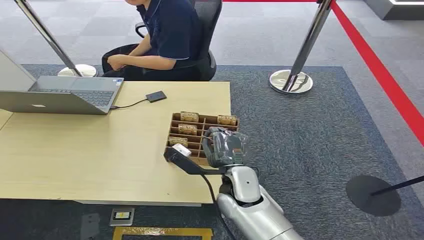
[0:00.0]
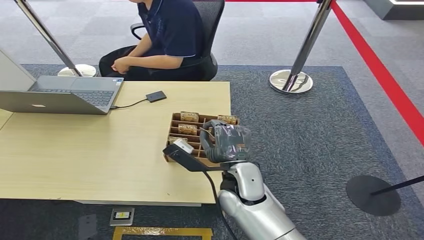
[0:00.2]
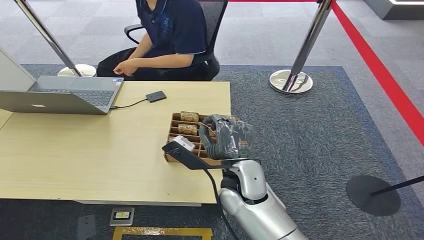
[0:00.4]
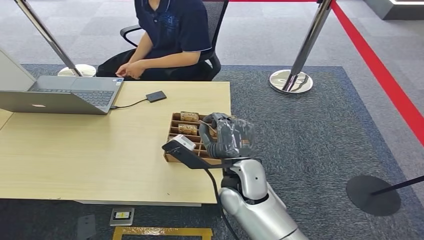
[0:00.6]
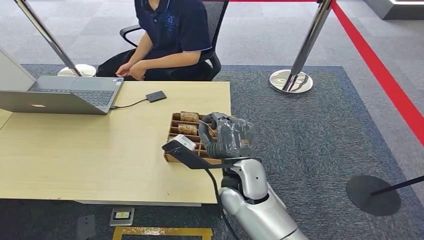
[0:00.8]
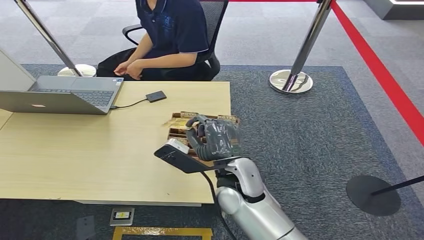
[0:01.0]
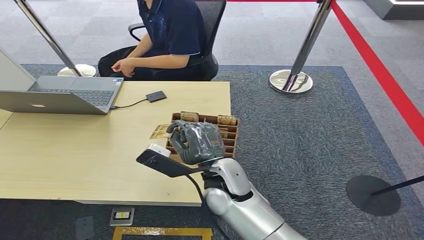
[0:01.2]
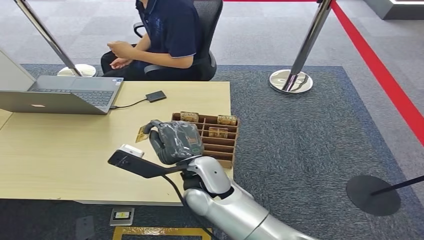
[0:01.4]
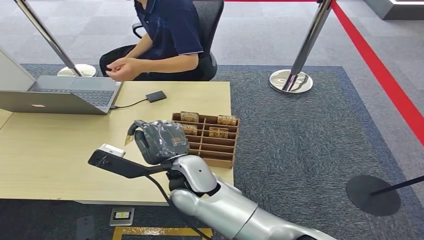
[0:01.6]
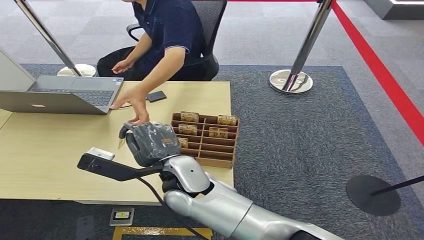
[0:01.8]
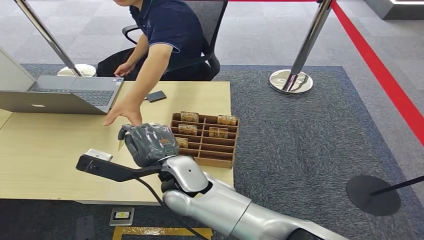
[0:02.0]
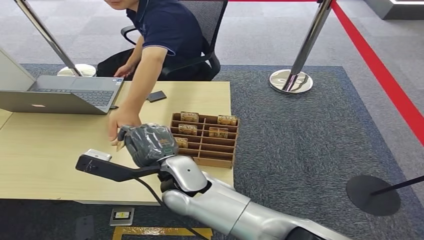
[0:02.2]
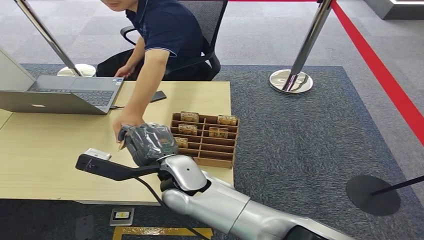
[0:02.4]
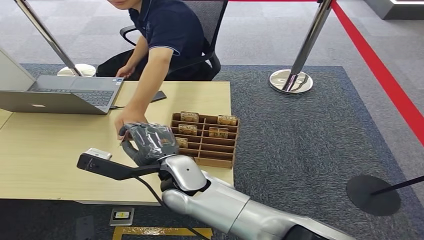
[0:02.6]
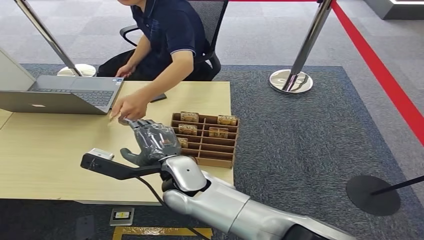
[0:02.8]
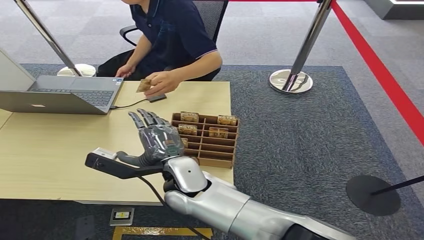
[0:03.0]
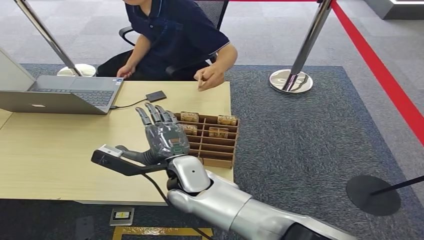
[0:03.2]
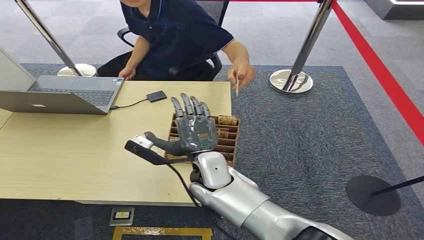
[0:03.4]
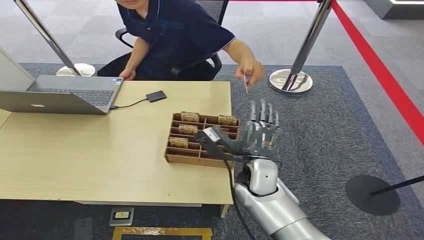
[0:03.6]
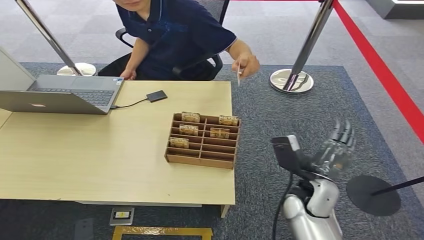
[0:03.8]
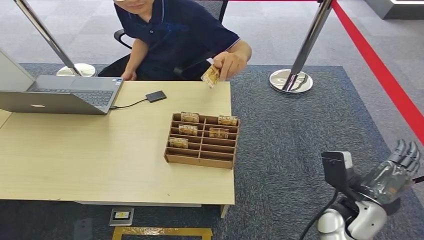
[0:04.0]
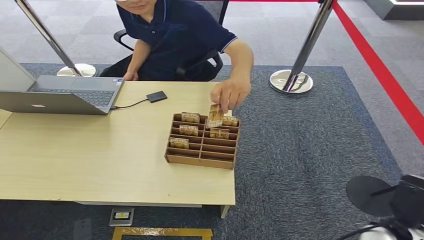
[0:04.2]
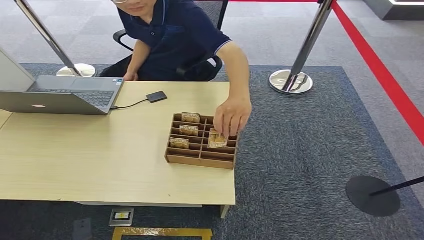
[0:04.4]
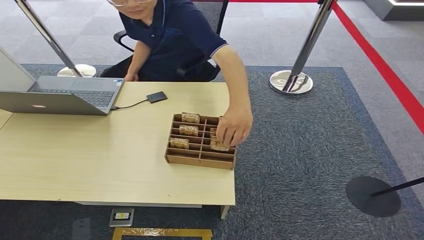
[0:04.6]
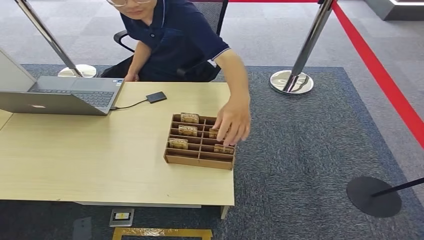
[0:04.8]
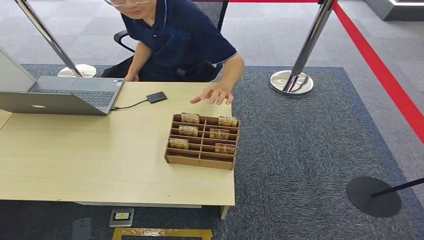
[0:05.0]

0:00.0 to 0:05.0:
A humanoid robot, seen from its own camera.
Step, 0:00.0 to 0:01.2: Pick up the key card from the card box.
Step, 0:01.4 to 0:05.0: Hand the key card to the target.
0:01.6 to 0:03.4: The right hand changes place by some 5 cm.
0:03.4 to 0:05.0: The right hand is displaced to the right, downward and backward by about 40 cm.

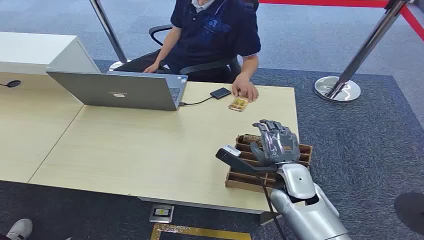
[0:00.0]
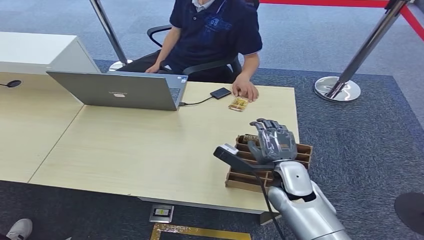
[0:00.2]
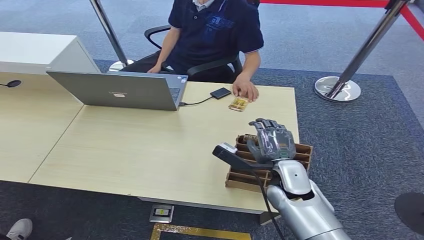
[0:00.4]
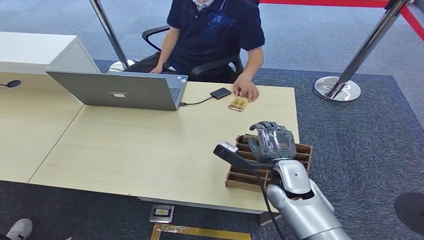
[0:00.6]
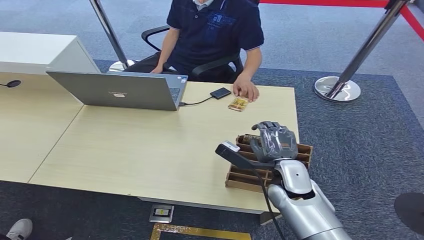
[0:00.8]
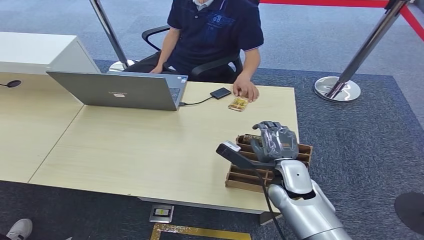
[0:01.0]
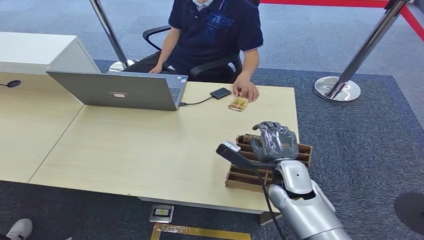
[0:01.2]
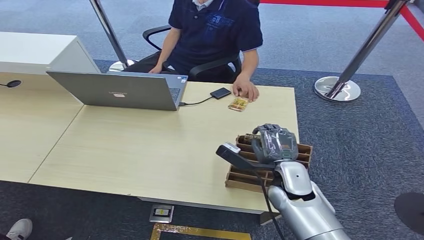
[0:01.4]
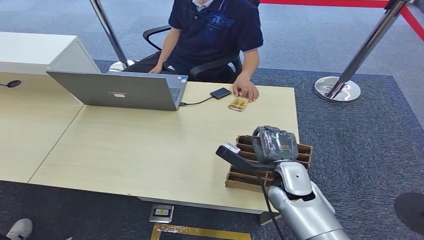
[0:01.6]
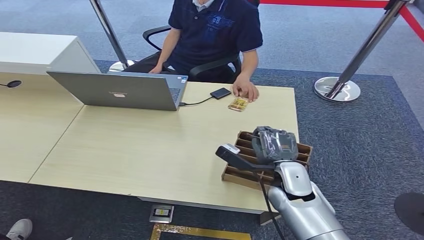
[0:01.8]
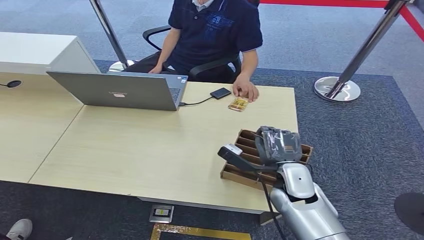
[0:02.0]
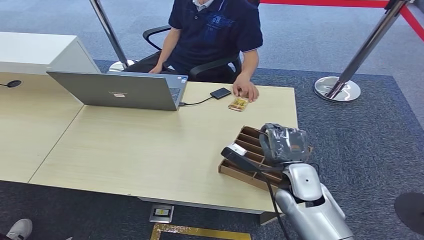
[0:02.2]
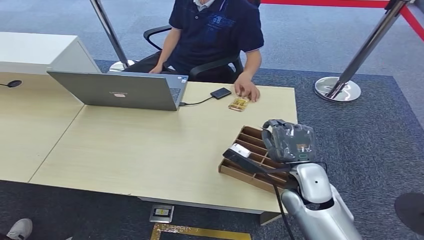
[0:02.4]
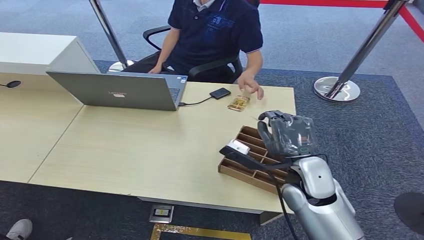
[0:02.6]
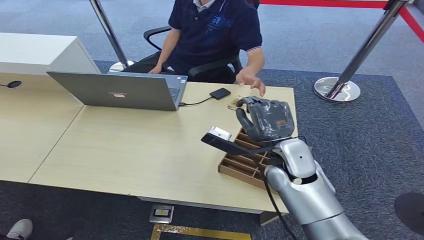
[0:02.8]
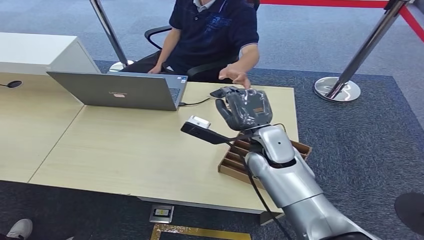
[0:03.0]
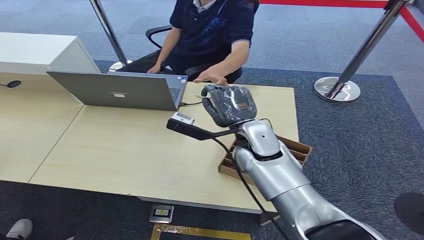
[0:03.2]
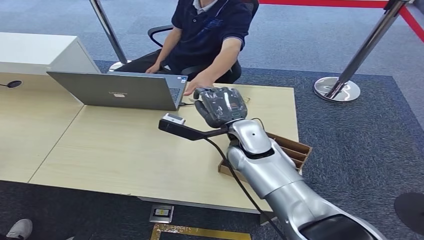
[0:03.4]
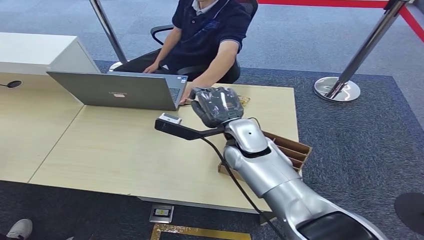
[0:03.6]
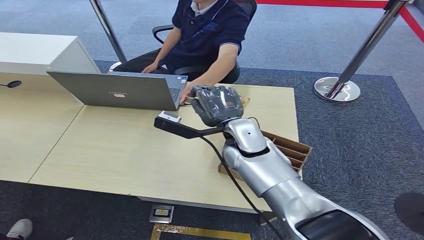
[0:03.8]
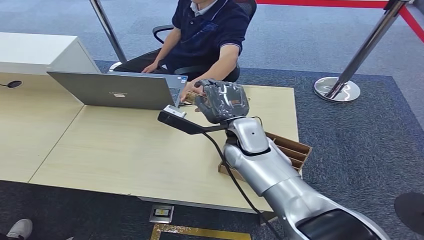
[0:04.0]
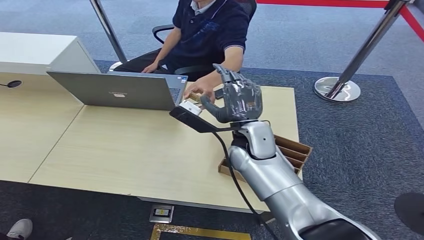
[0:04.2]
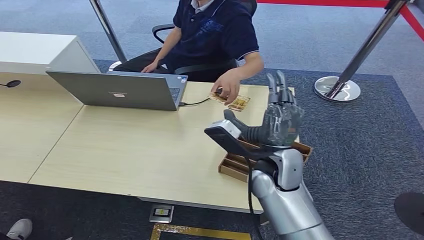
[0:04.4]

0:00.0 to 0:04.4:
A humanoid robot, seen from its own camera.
Step, 0:00.0 to 0:02.2: Pick up the key card from the card box.
Step, 0:02.4 to 0:04.4: Hand the key card to the target.
0:01.4 to 0:03.0: The right hand travels upward, forward and to the left by roughly 15 cm.
0:03.0 to 0:04.4: The right hand shifts by approximately 5 cm.

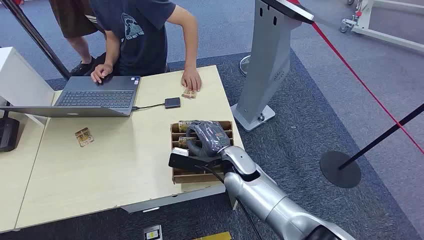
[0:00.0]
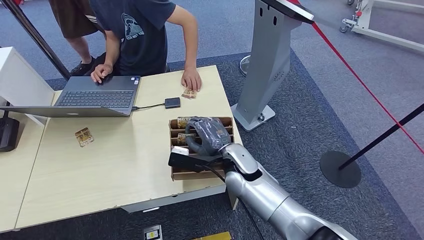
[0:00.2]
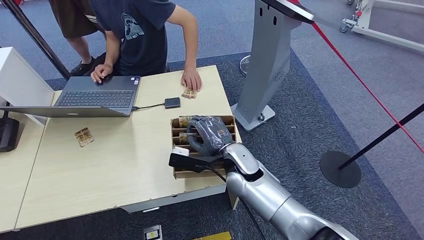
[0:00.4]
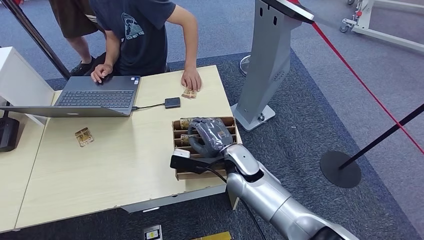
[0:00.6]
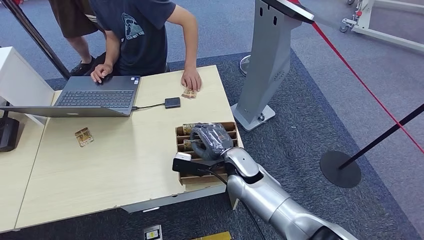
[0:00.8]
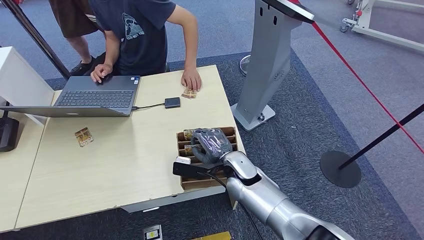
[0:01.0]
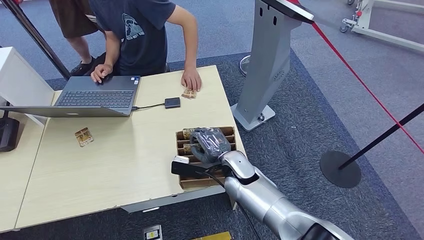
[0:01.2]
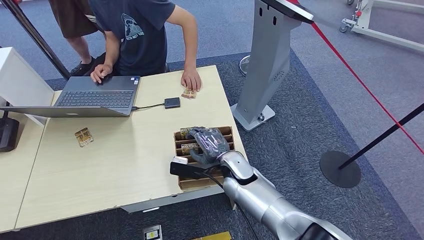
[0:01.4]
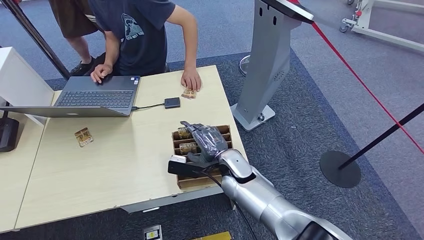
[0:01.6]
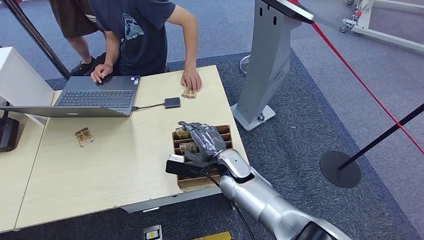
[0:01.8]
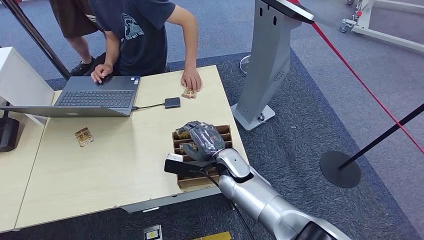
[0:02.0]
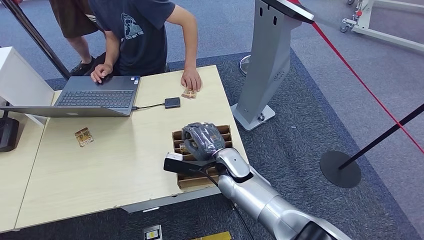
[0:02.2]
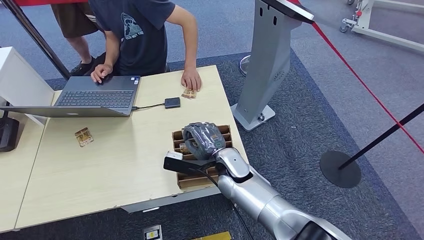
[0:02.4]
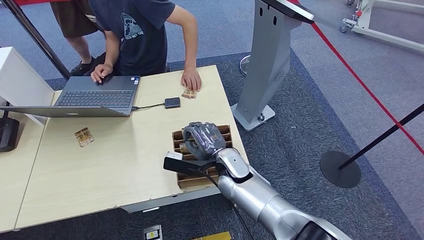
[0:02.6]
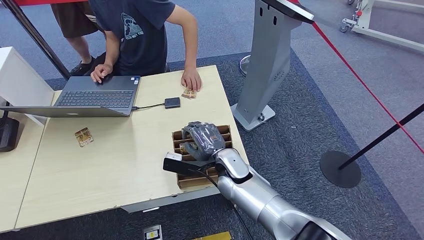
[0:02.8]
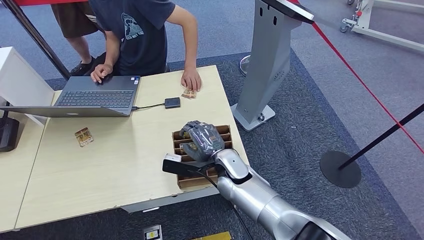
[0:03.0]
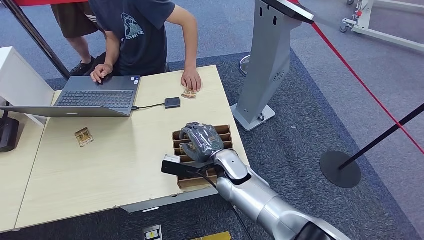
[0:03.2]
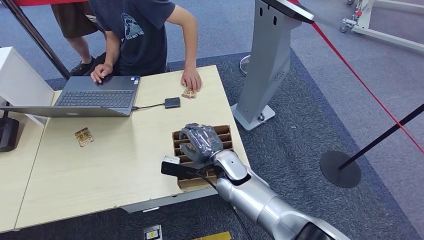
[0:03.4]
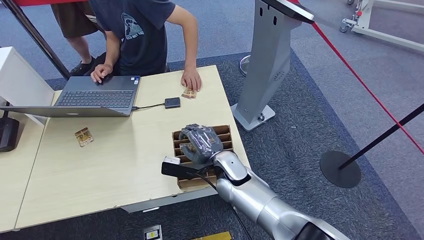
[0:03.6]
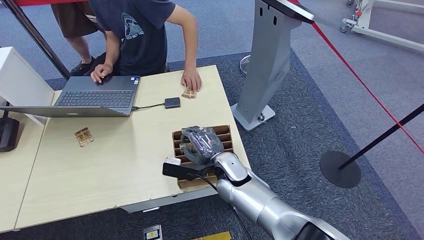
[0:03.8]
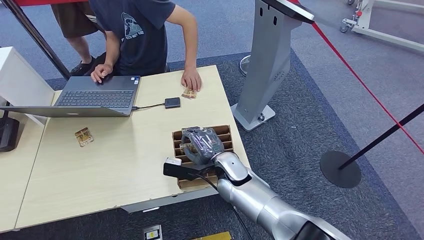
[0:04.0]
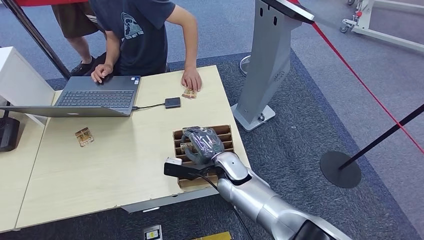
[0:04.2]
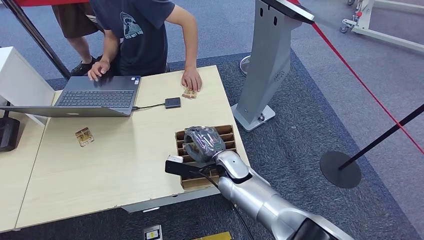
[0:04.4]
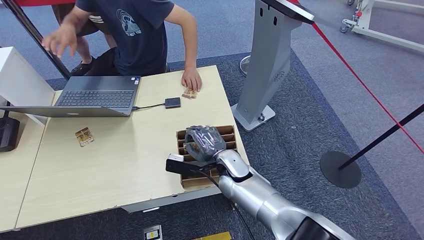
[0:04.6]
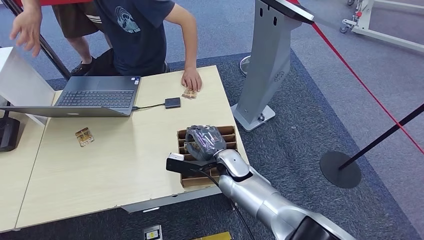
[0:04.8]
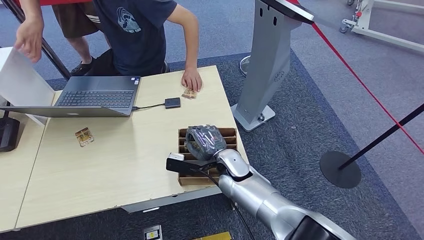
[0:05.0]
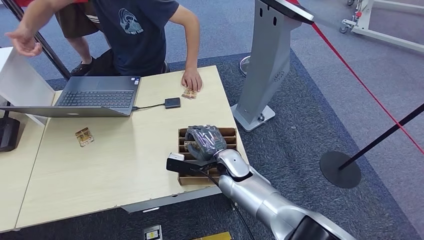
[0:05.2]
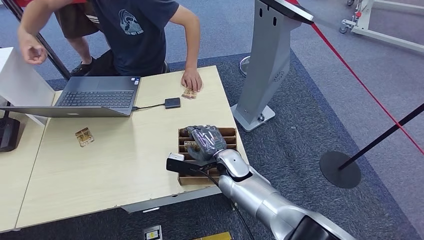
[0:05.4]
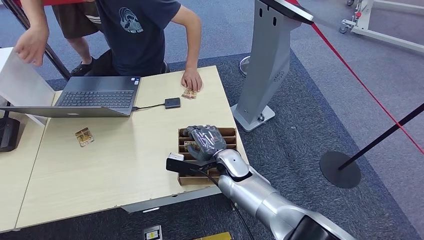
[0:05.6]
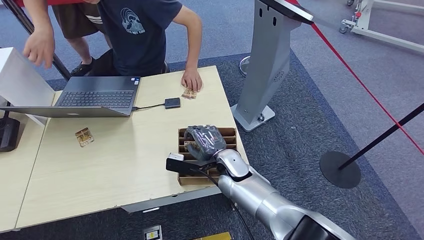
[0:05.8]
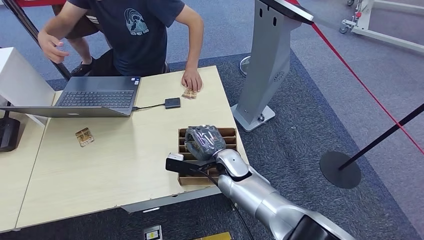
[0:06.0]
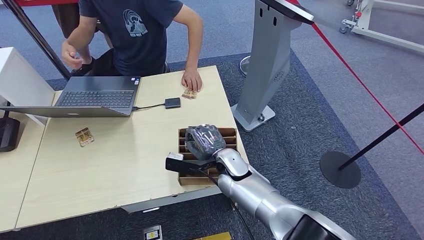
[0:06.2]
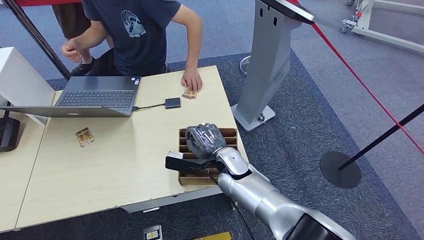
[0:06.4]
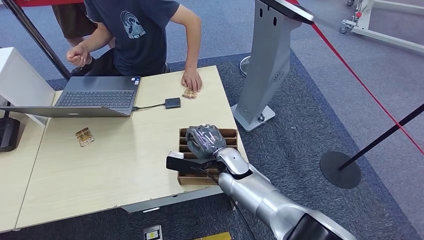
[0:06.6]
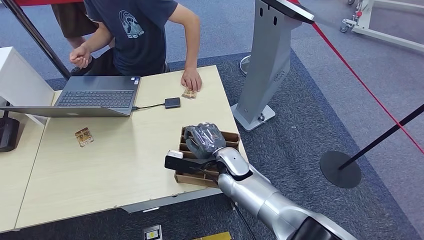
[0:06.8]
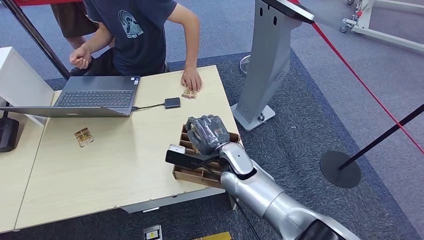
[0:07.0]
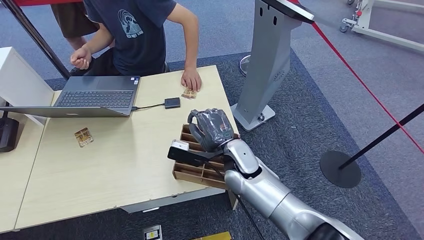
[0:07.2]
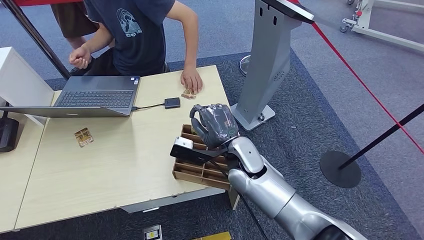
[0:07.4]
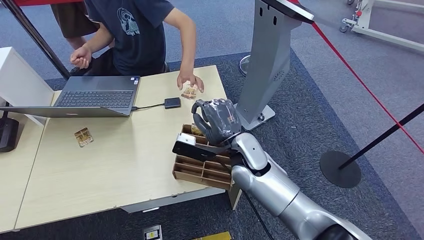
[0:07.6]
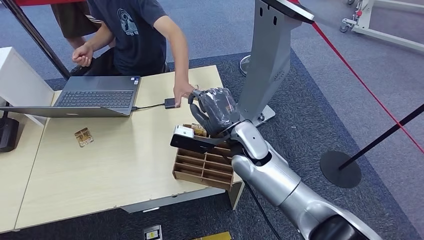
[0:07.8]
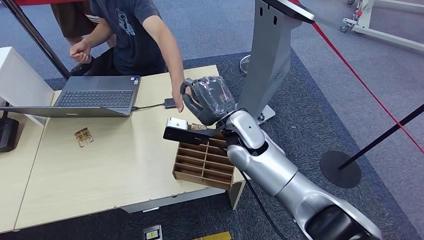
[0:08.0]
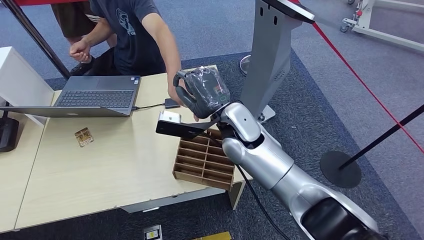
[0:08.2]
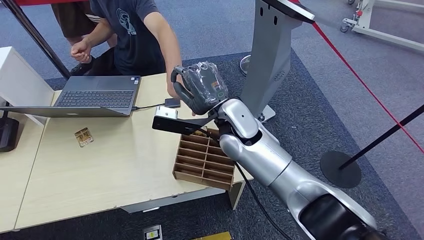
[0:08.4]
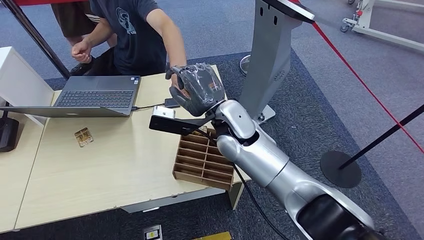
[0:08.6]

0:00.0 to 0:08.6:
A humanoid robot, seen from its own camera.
Step, 0:00.0 to 0:07.6: Pick up the key card from the card box.
Step, 0:07.8 to 0:08.6: Hand the key card to the target.
0:01.4 to 0:04.4: The hands move only a little.
0:04.4 to 0:05.8: Both hands stay put.
0:05.8 to 0:07.2: The right hand heads upward, covering approximately 5 cm.
0:07.2 to 0:08.6: The right hand shifts roughly 10 cm upward.
